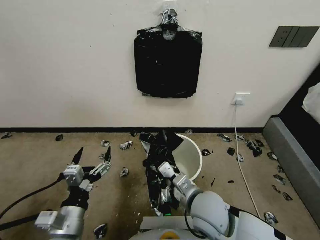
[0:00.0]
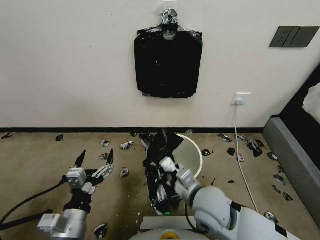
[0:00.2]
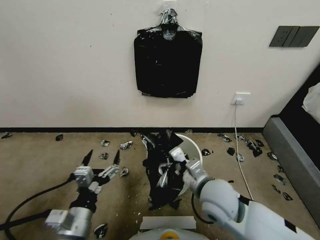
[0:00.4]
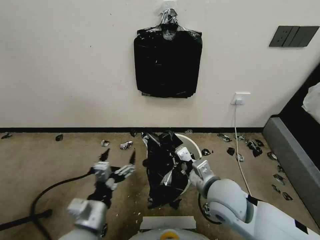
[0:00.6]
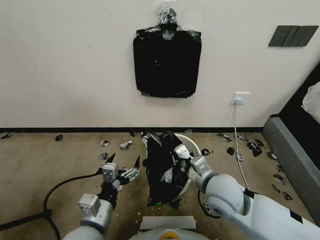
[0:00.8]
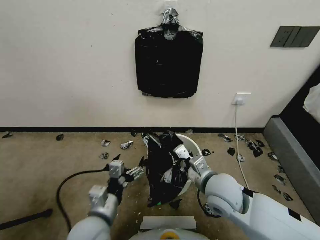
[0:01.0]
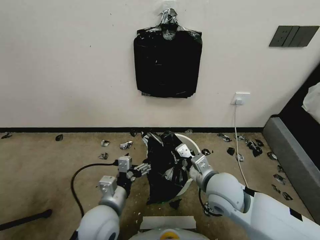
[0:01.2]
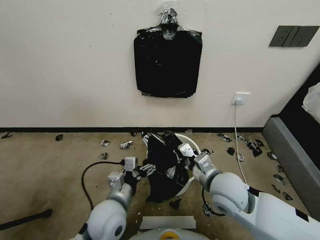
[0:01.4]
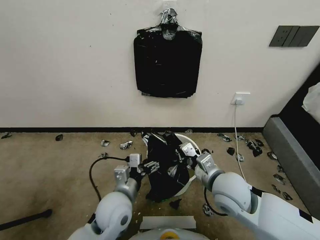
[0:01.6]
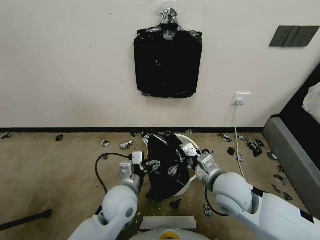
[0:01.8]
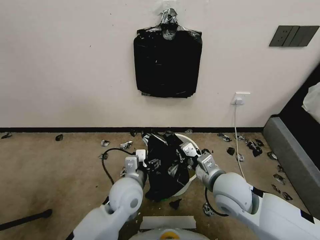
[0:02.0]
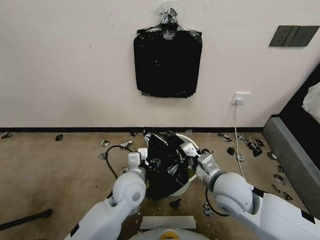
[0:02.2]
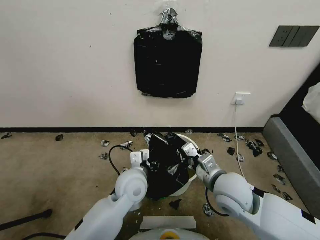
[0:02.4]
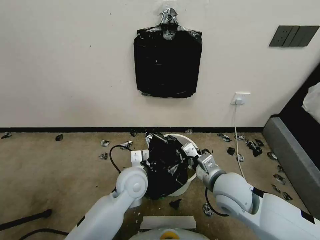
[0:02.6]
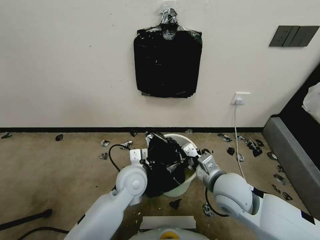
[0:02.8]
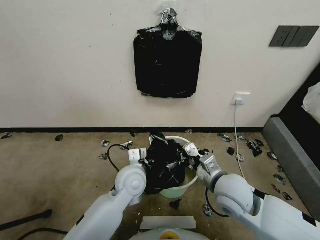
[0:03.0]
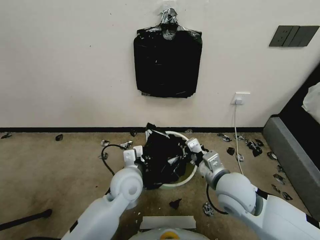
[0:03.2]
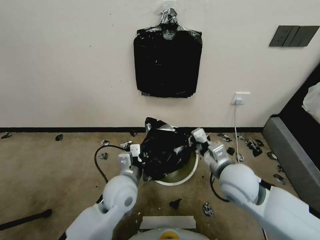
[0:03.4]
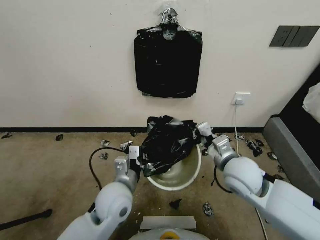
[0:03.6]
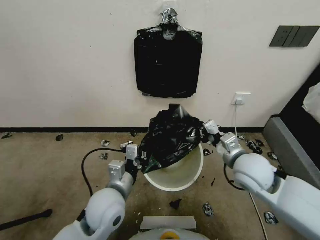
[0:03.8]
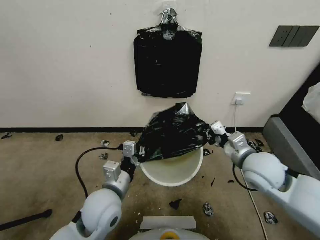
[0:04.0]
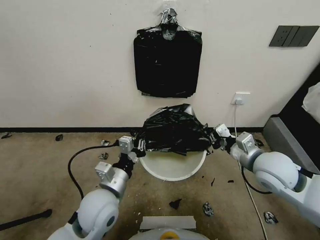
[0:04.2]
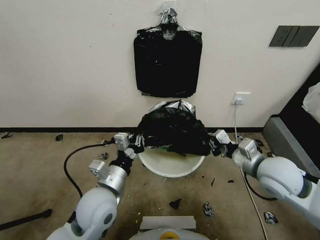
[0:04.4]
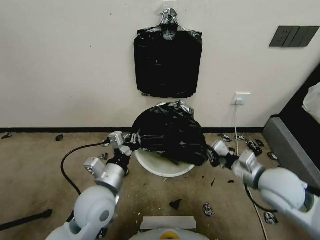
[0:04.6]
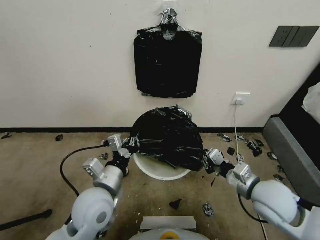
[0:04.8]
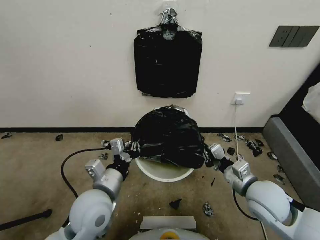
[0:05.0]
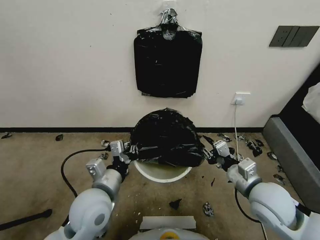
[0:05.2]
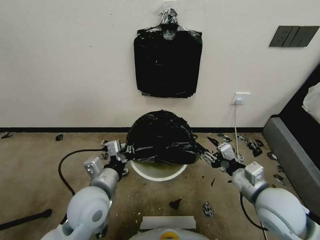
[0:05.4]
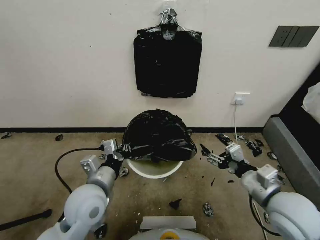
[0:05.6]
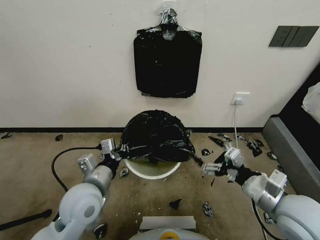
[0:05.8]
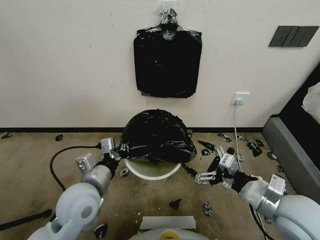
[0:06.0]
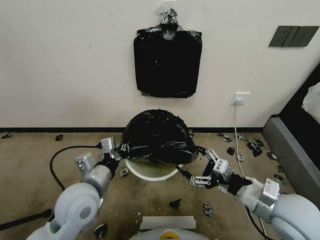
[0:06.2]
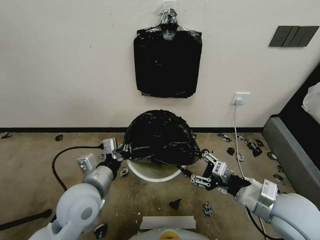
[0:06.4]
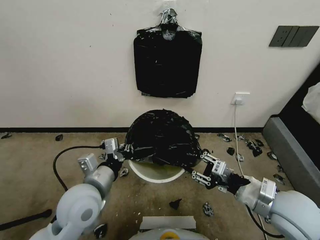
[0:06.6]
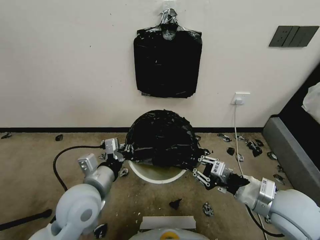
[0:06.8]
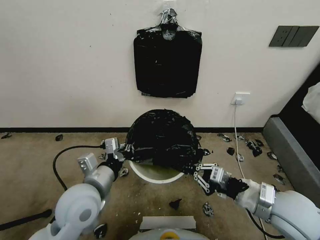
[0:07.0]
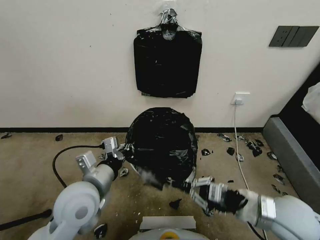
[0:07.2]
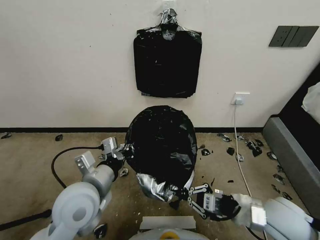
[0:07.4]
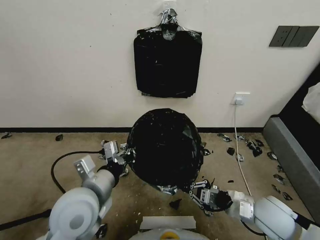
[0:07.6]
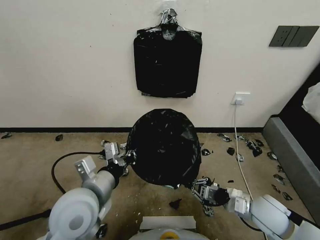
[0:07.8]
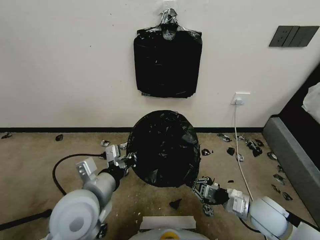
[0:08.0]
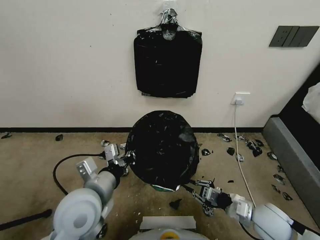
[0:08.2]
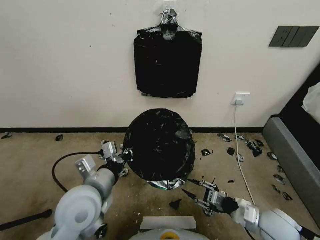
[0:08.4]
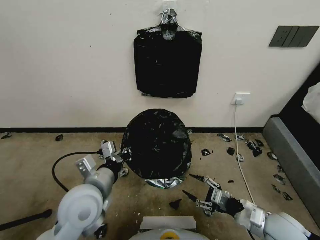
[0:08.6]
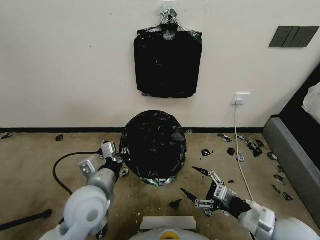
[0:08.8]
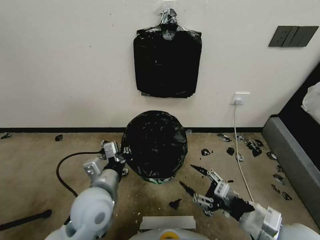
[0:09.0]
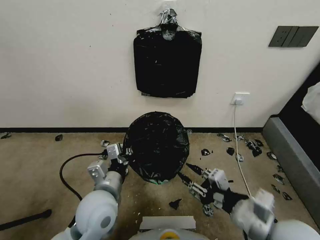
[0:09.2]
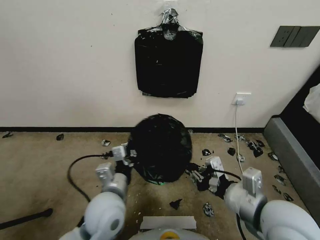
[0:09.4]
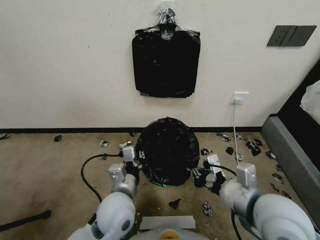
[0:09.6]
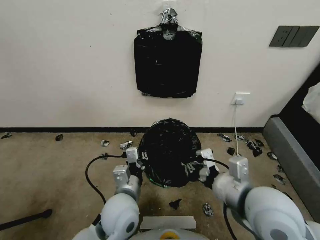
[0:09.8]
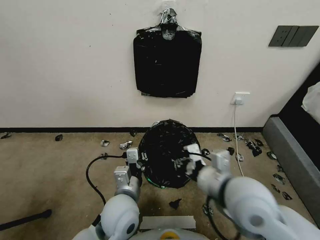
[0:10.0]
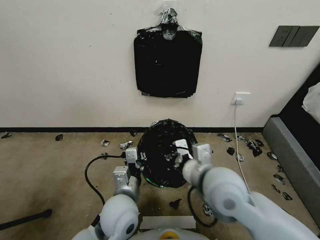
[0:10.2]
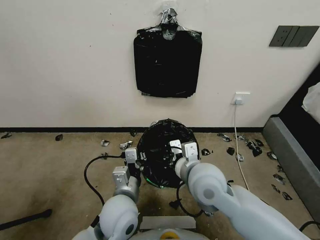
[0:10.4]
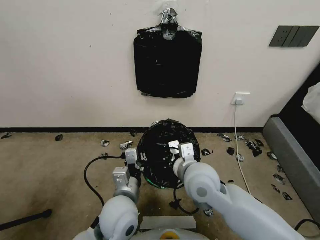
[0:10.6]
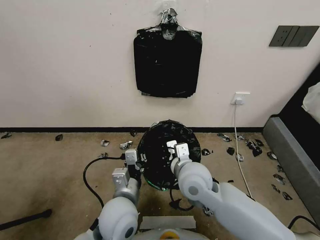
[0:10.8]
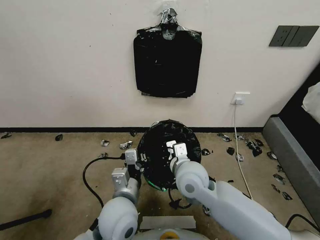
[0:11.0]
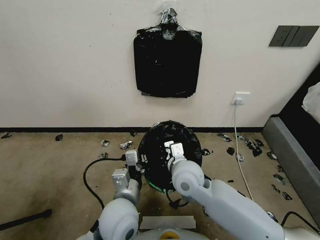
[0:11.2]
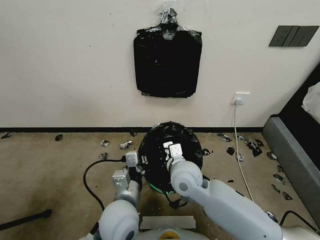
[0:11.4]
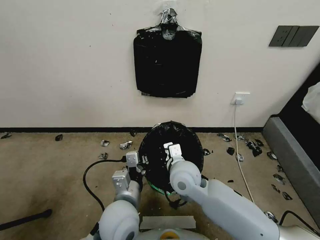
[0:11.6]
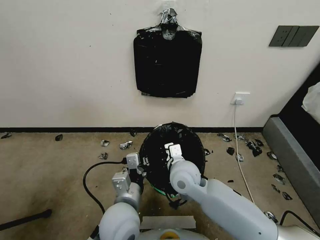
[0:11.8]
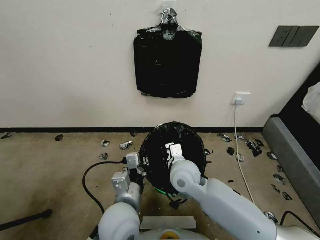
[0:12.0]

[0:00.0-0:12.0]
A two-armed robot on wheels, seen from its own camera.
Task of the whole recording: Place a trash bag onto the trash bin.
0:00.0 to 0:01.6: The right gripper moves to the right, some 5 cm. The left gripper goes approximately 15 cm to the right and forward.
0:01.6 to 0:03.0: The left gripper heads forward, covering approximately 10 cm, and closes.
0:03.0 to 0:04.4: The left gripper moves backward and to the left, approximately 10 cm, while the right gripper goes about 10 cm to the right.
0:04.4 to 0:06.0: The right gripper heads backward, covering roughly 10 cm, and opens.
0:06.0 to 0:07.6: The right gripper moves downward, some 10 cm, and closes its fingers.
0:07.6 to 0:09.0: The right gripper is displaced backward and upward by approximately 10 cm, and opens its fingers.
0:09.0 to 0:10.4: The left gripper heads to the right, covering approximately 5 cm. The right gripper shifts approximately 20 cm to the left and forward, and closes.
0:10.4 to 0:12.0: The right gripper is displaced downward and forward by about 10 cm.

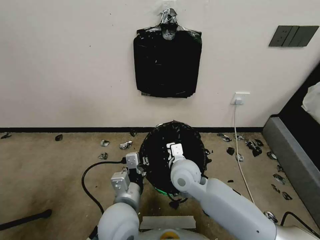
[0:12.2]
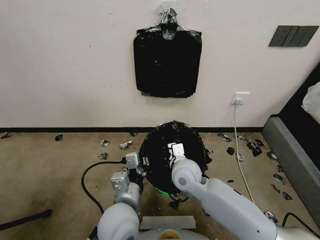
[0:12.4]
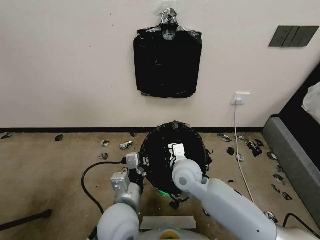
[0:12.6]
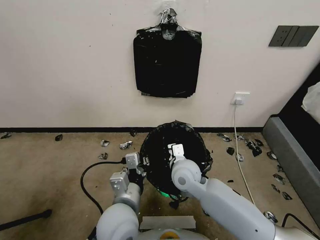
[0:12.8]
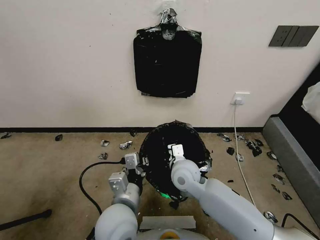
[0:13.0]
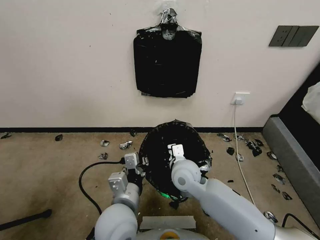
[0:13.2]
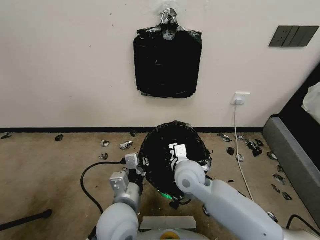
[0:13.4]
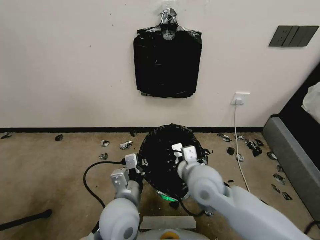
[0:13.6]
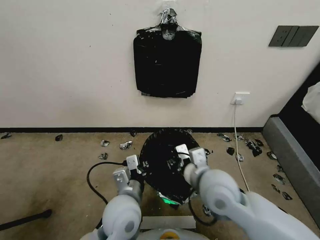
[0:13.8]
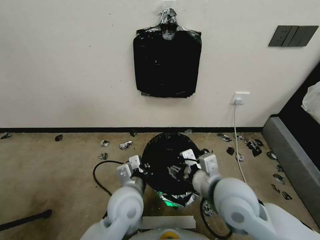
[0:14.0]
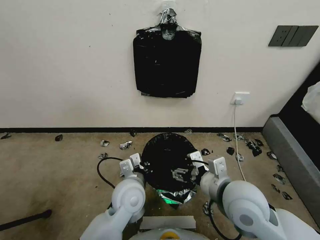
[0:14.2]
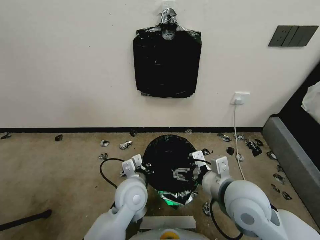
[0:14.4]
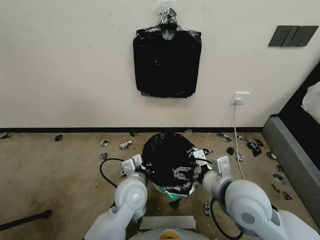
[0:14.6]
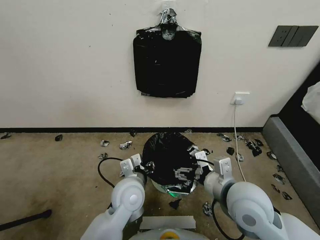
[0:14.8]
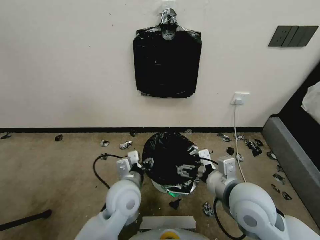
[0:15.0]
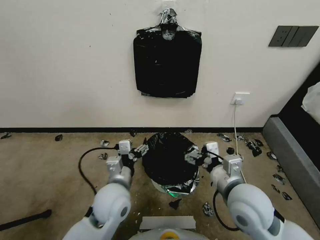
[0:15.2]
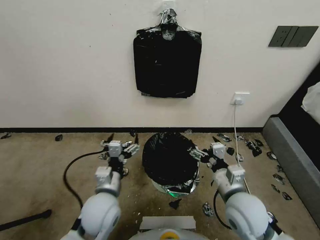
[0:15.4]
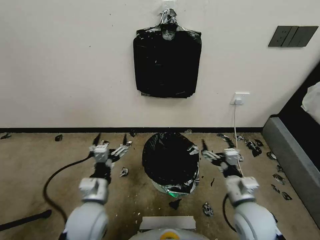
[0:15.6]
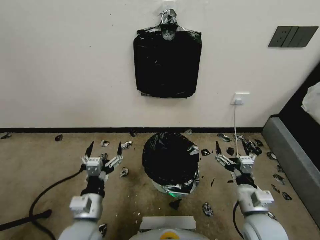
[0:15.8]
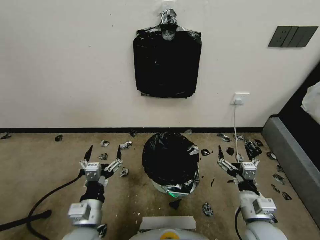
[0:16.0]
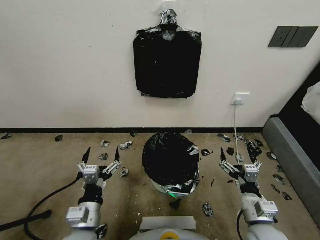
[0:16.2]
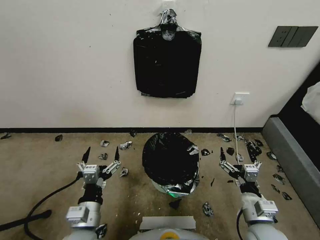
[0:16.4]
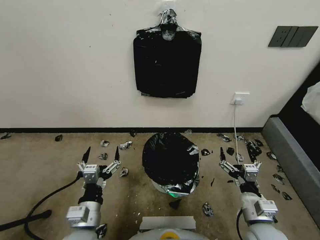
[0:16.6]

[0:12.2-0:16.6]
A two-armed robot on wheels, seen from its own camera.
Task of the whole recording: Place a trash bag onto the trash bin.
0:12.2 to 0:13.6: The right gripper moves approximately 5 cm.
0:13.6 to 0:15.2: The right gripper is displaced to the right and backward by roughly 10 cm, and opens its fingers; the left gripper ends up about 5 cm from where it was, and opens.
0:15.2 to 0:16.6: The left gripper shifts approximately 10 cm backward and to the left, while the right gripper shifts some 15 cm downward, to the right and backward.
